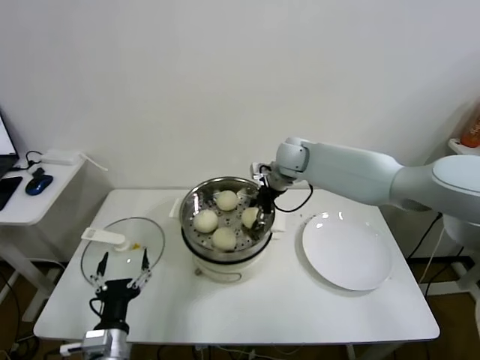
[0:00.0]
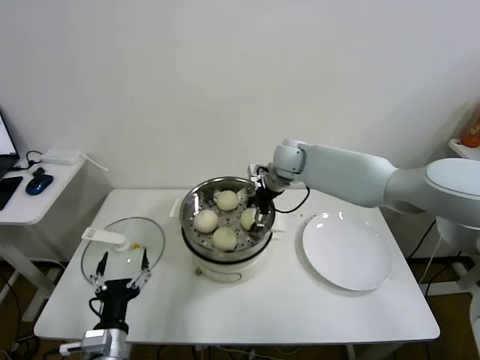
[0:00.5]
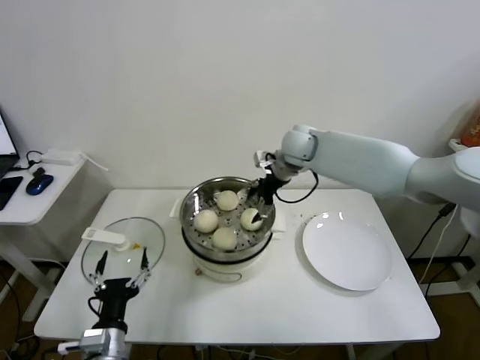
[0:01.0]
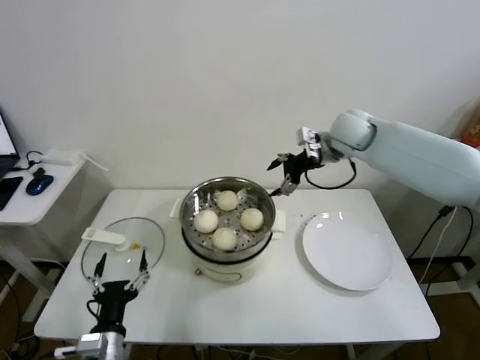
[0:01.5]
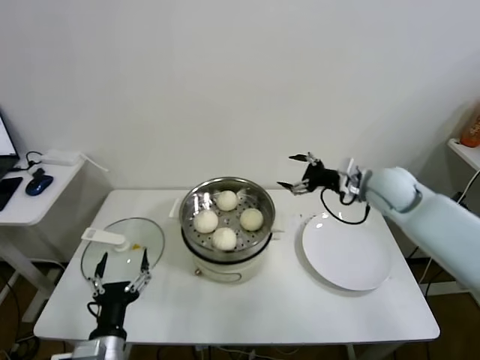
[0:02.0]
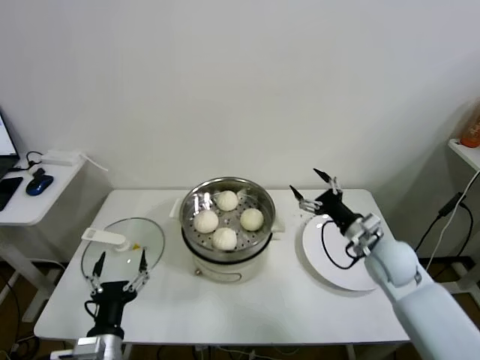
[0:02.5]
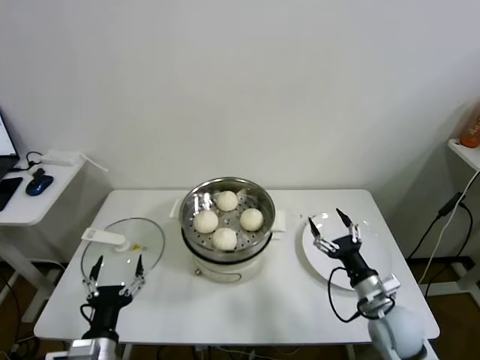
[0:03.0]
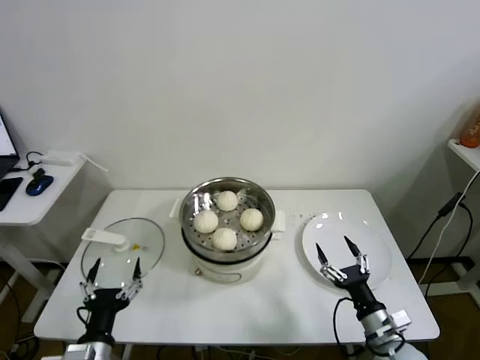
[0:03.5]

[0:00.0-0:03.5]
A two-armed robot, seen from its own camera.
Task of the whole recording: take steamed baozi put them in steamer.
0:00.0 to 0:02.0: The right gripper goes approximately 20 cm to the right and backward, and opens.
0:02.0 to 0:03.5: The right gripper heads backward and downward, covering about 35 cm.

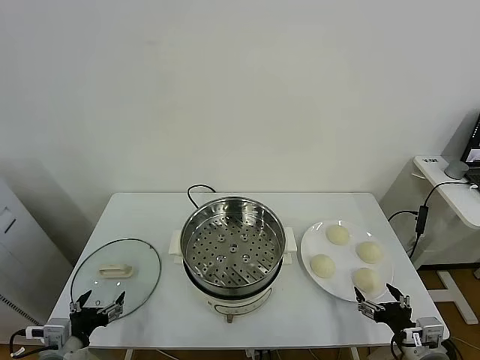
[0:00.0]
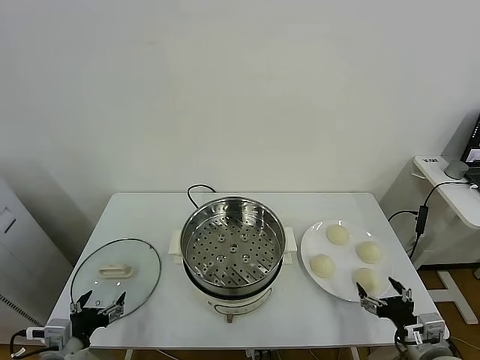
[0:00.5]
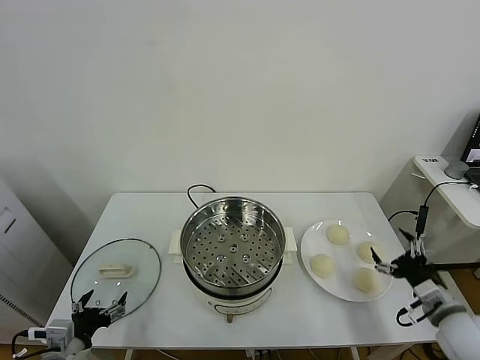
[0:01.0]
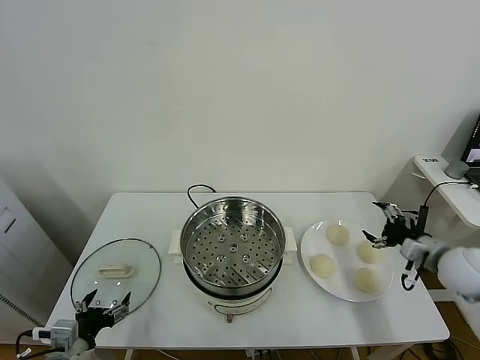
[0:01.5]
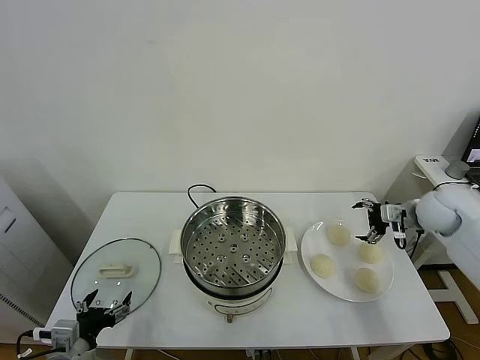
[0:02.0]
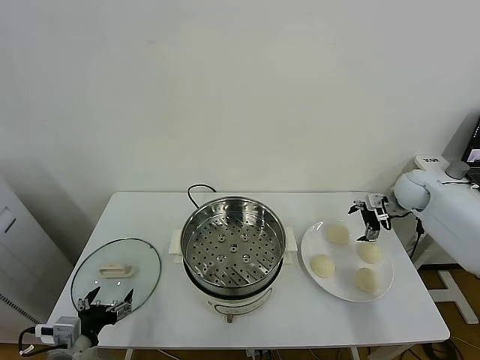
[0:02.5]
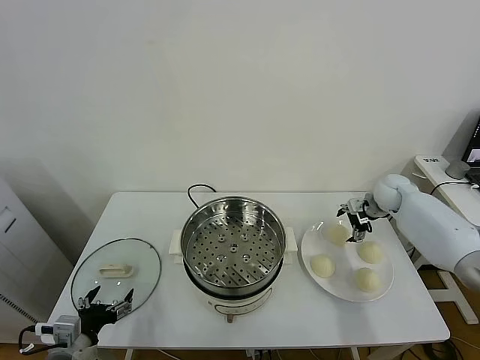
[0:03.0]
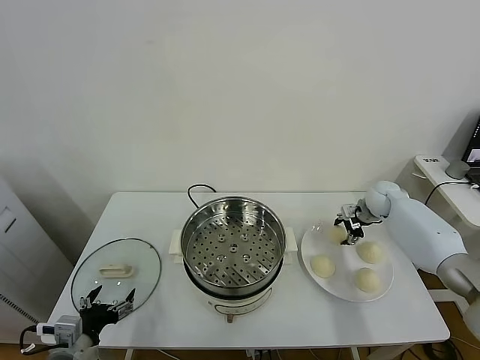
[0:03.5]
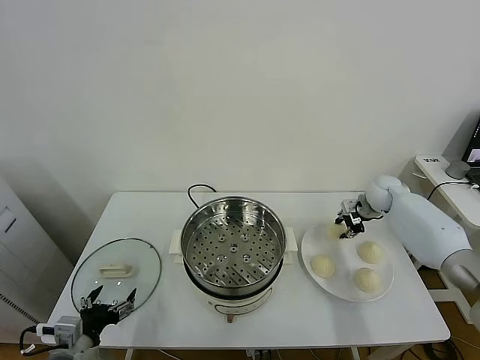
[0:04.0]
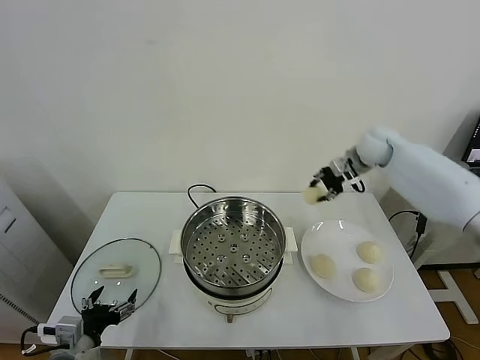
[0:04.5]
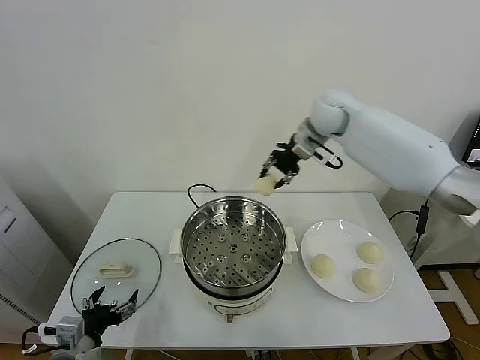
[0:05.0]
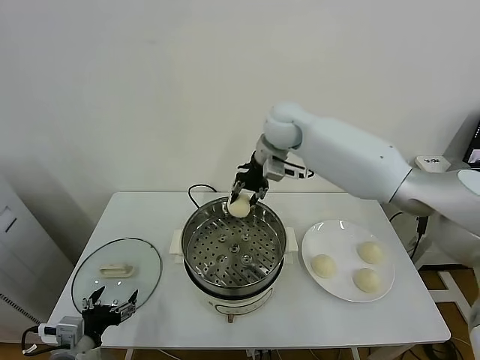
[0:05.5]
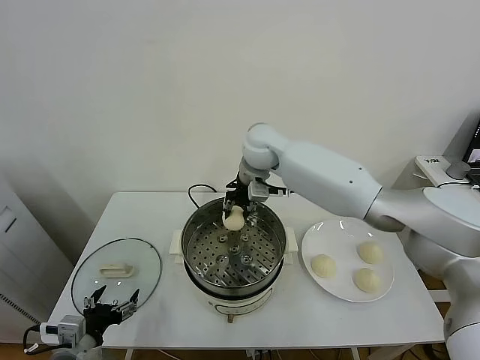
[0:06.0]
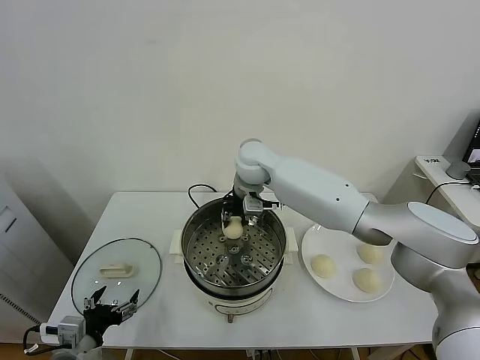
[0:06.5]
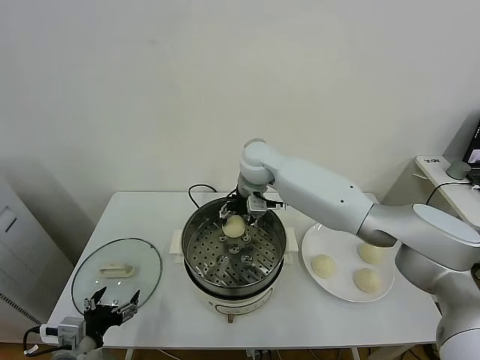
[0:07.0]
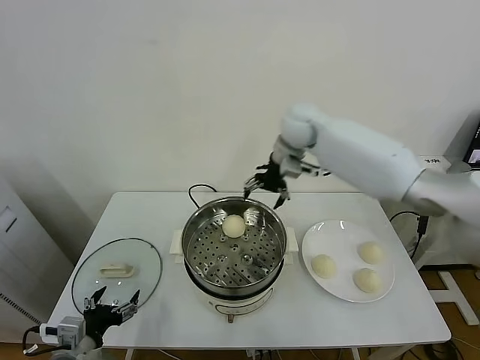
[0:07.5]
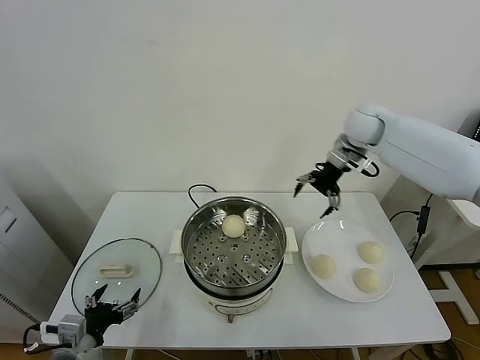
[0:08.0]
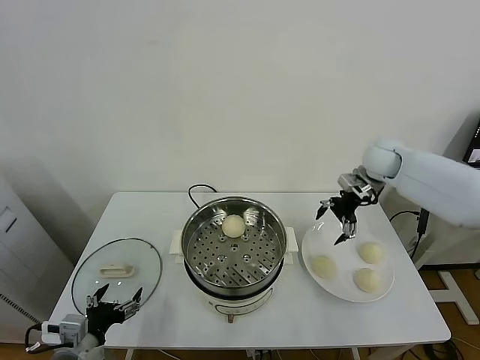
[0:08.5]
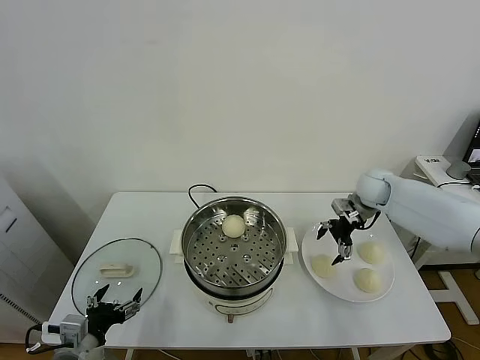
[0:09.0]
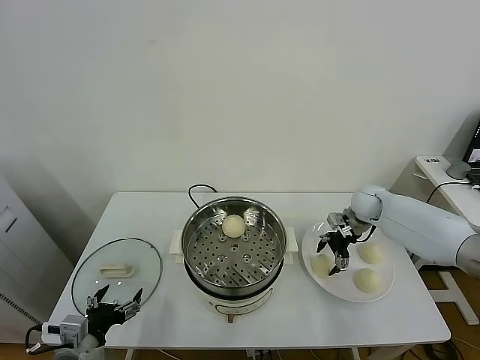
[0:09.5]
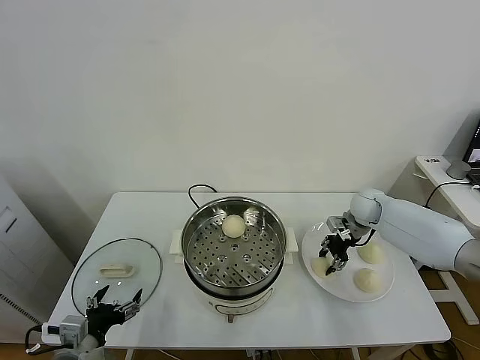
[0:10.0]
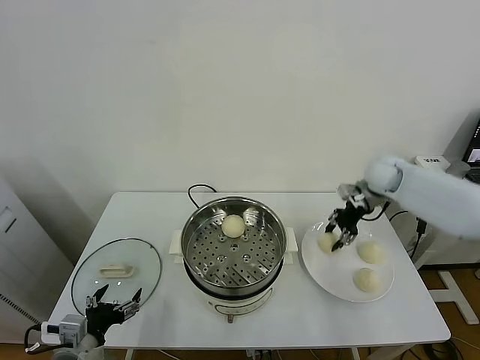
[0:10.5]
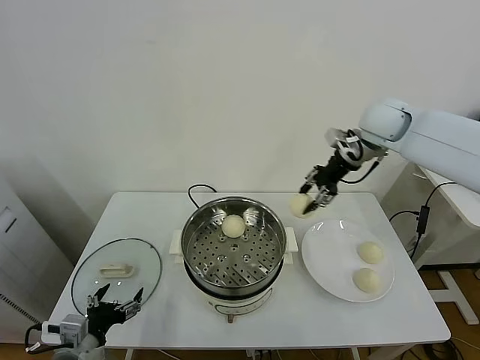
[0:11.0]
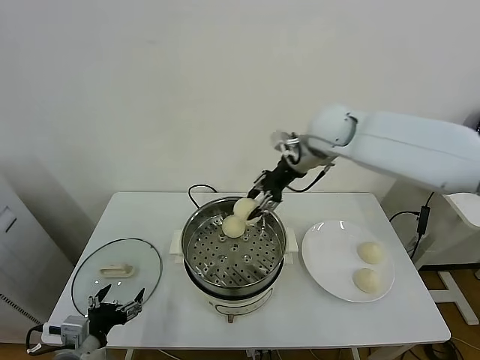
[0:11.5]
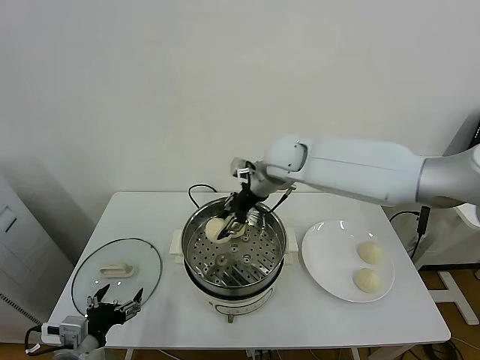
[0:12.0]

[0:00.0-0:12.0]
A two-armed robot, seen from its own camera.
Task of the whole recording: take steamed baozi put them in steamer.
Step, 0:00.0 to 0:03.5: Grasp the baozi in the plate with right gripper.
Step, 0:04.0 to 0:07.0: Place the baozi on the steamer with right gripper.
Step, 0:07.5 to 0:10.0: Grasp the baozi in the plate with right gripper.
0:02.0 to 0:04.0: The right gripper moves forward and to the left, roughly 10 cm, and closes up.
0:04.0 to 0:06.0: The right gripper is displaced to the left by about 35 cm.
0:06.0 to 0:08.0: The right gripper goes roughly 25 cm to the right, and opens its fingers.
0:08.0 to 0:10.0: The right gripper moves downward, approximately 20 cm, and closes.
0:10.0 to 0:12.0: The right gripper heads to the left and upward, covering about 30 cm.

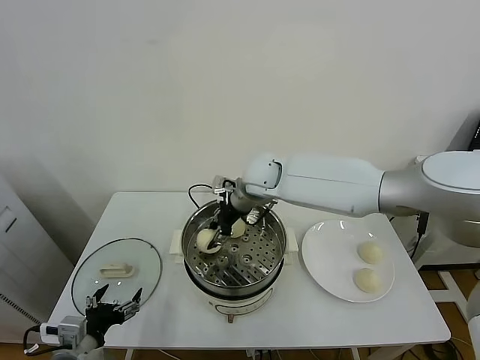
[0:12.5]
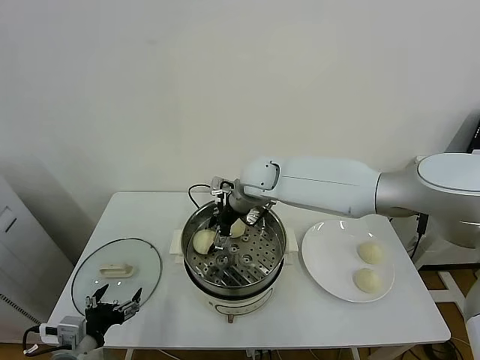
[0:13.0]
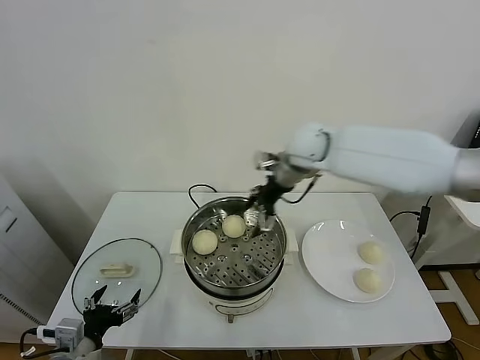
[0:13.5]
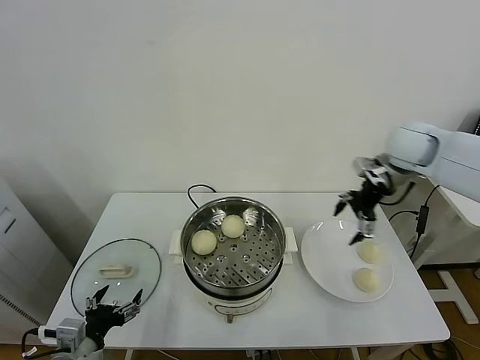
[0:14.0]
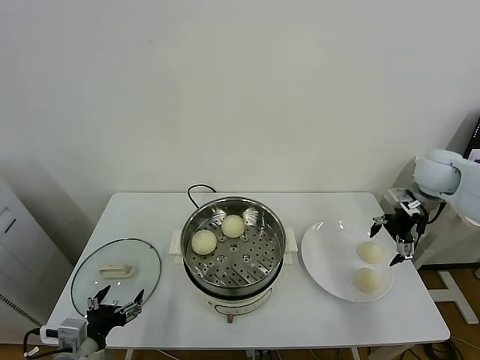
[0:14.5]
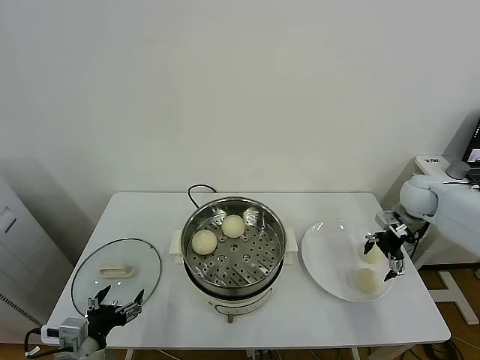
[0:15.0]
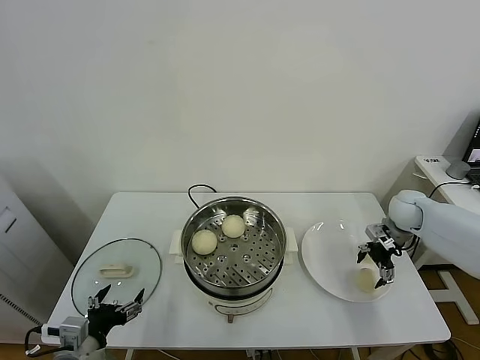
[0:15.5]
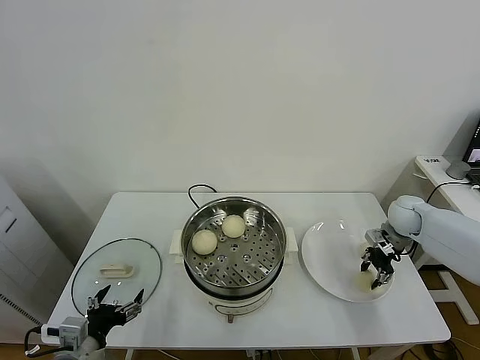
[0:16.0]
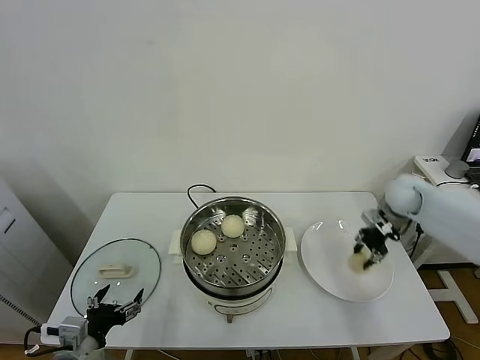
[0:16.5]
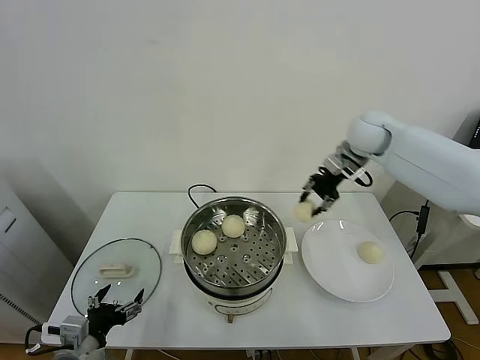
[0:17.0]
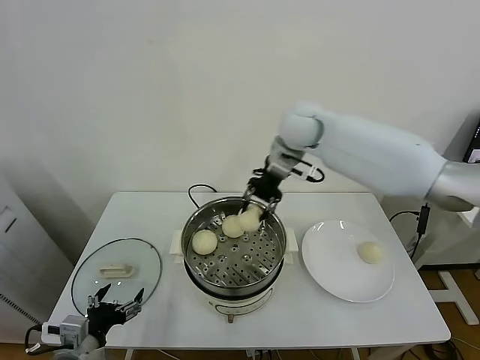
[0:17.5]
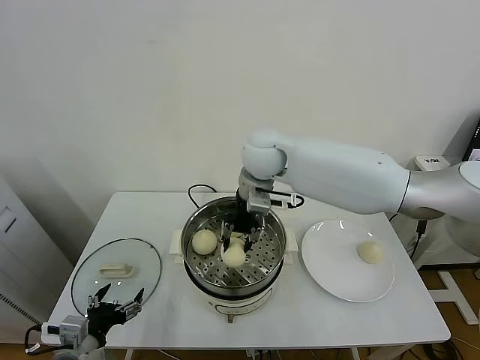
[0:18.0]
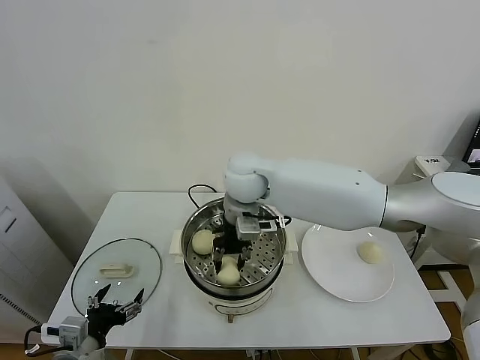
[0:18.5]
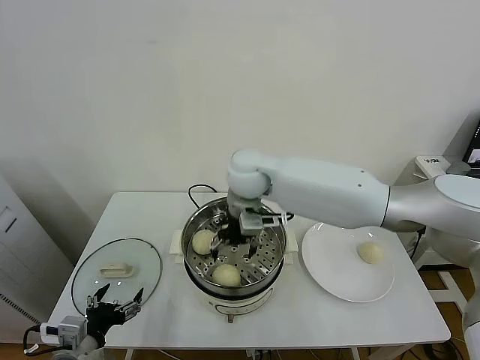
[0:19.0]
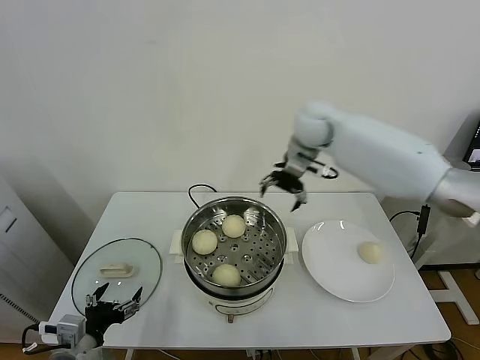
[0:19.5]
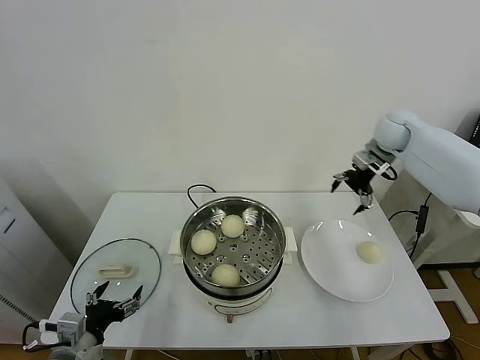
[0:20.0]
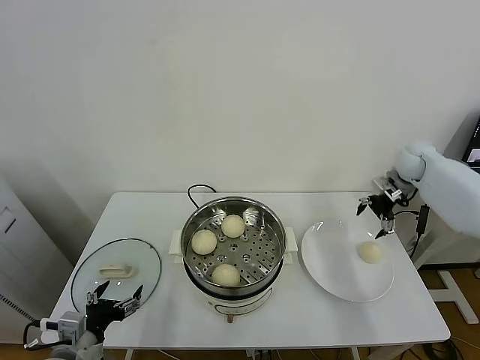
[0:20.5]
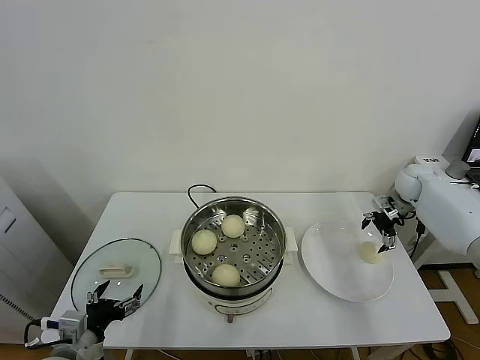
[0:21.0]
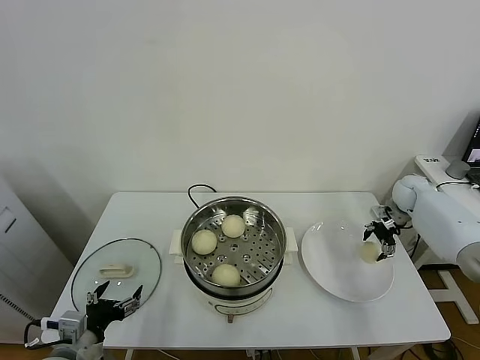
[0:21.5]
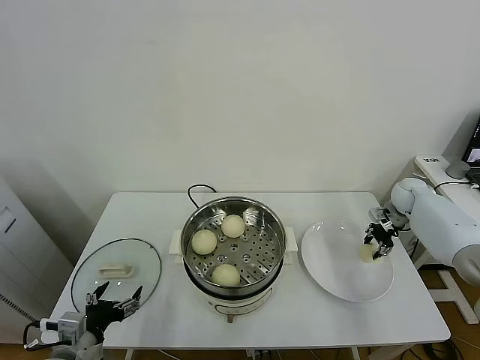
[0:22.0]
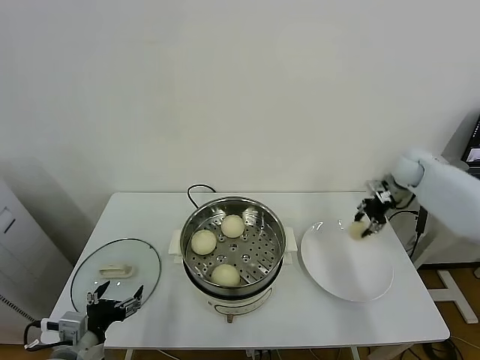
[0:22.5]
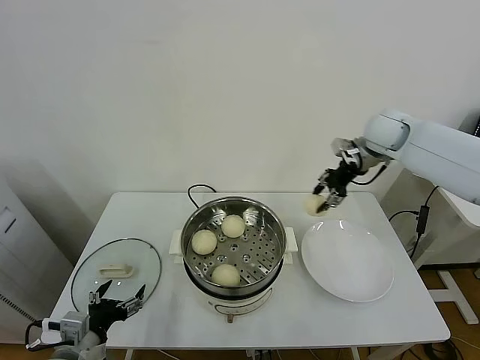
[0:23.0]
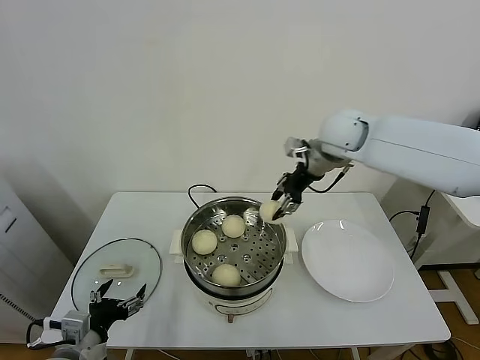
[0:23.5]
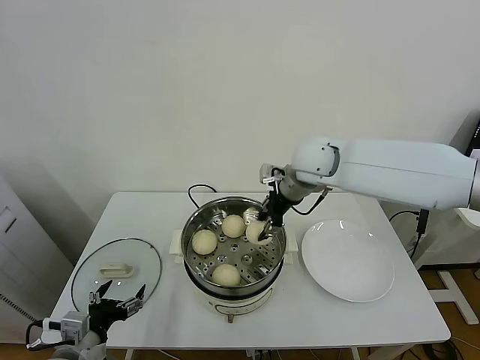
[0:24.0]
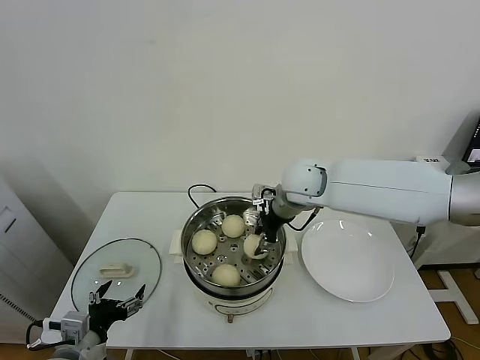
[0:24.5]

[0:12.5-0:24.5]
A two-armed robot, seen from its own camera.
Task of the whole recording: take steamed baozi put them in steamer.
Step, 0:13.5 to 0:16.0: Grasp the baozi in the plate with right gripper.
Step, 0:16.5 to 0:18.5: Place the baozi on the steamer with right gripper.
Step, 0:19.5 to 0:22.0: Grasp the baozi in the plate with right gripper.
0:12.5 to 0:14.5: The right gripper heads to the right, covering approximately 40 cm, and opens up.
0:14.5 to 0:16.5: The right gripper travels downward by some 5 cm, and closes.
0:16.5 to 0:18.5: The right gripper travels to the left by some 40 cm.
0:18.5 to 0:20.5: The right gripper heads to the right, covering approximately 40 cm, and opens its fingers.
0:20.5 to 0:22.5: The right gripper goes downward and returns, some 10 cm each way, and closes.
0:22.5 to 0:24.5: The right gripper moves to the left, approximately 30 cm.
